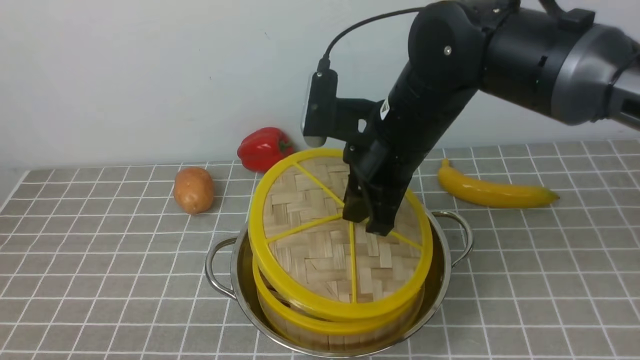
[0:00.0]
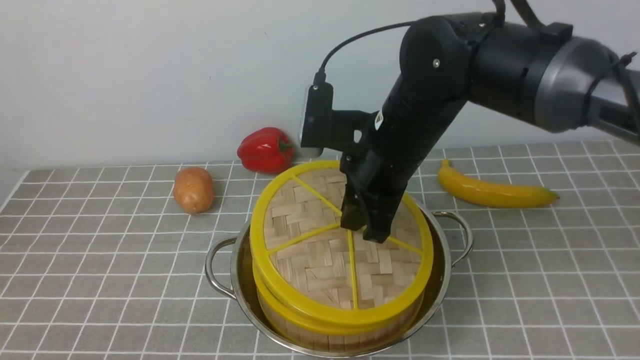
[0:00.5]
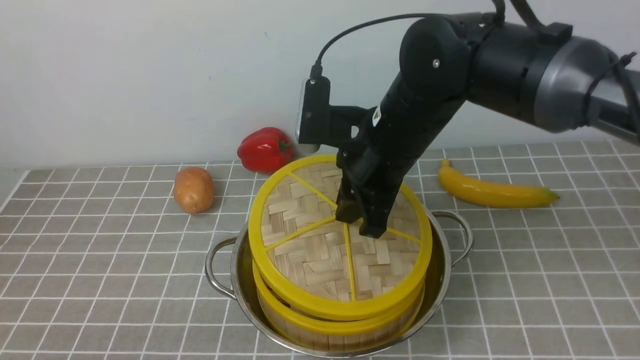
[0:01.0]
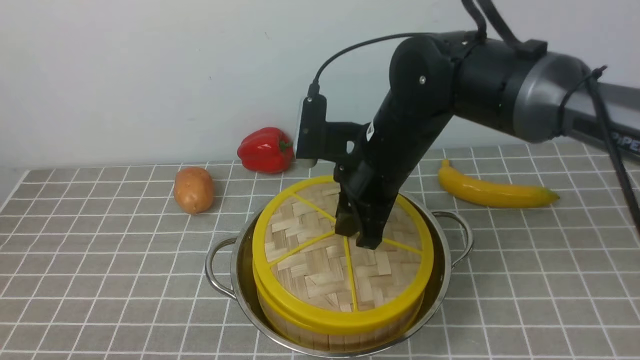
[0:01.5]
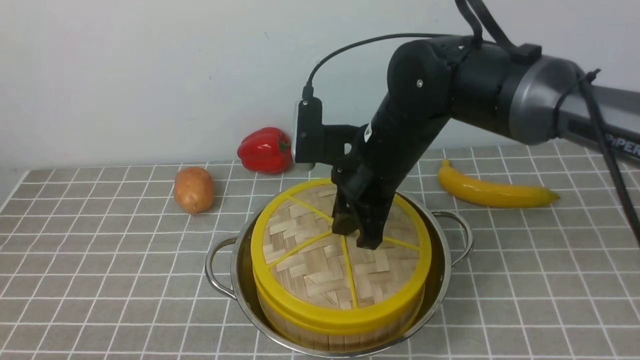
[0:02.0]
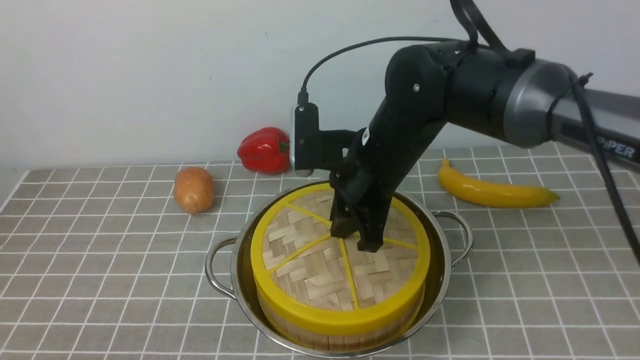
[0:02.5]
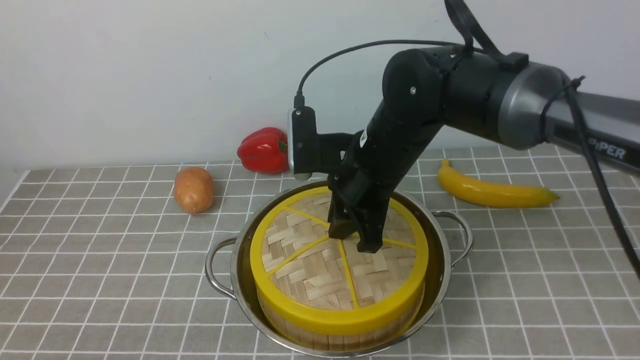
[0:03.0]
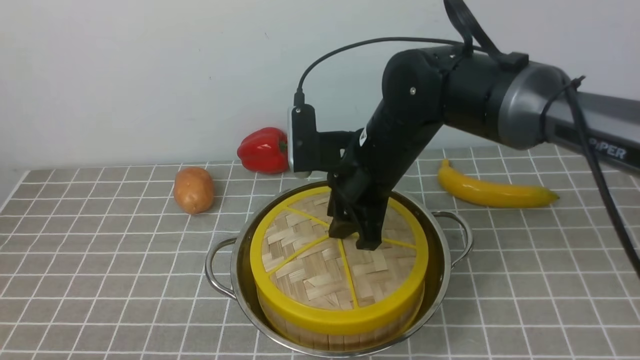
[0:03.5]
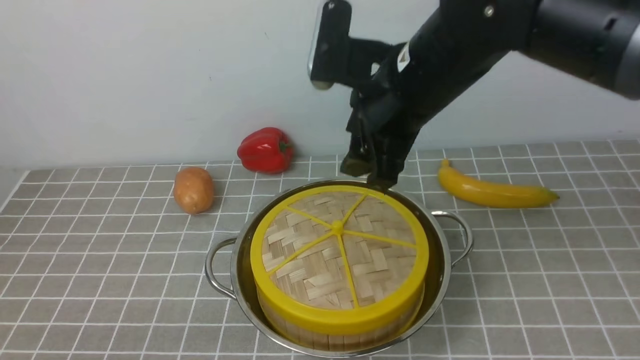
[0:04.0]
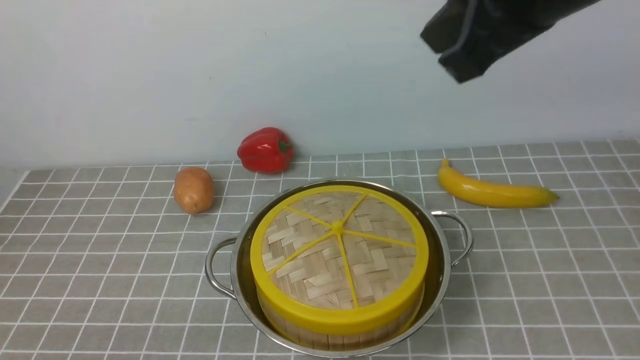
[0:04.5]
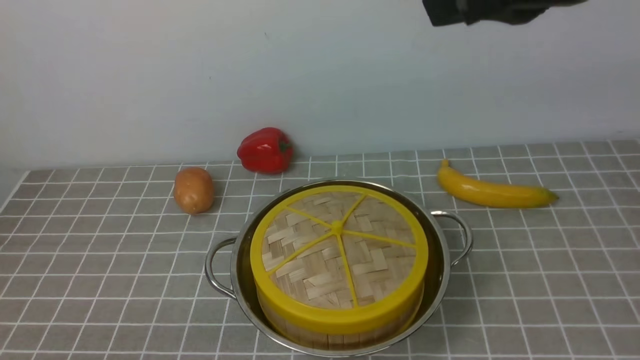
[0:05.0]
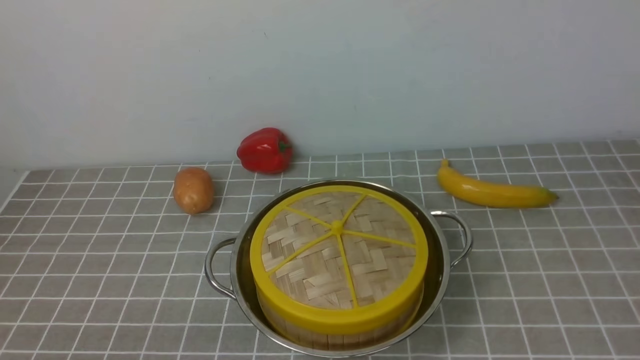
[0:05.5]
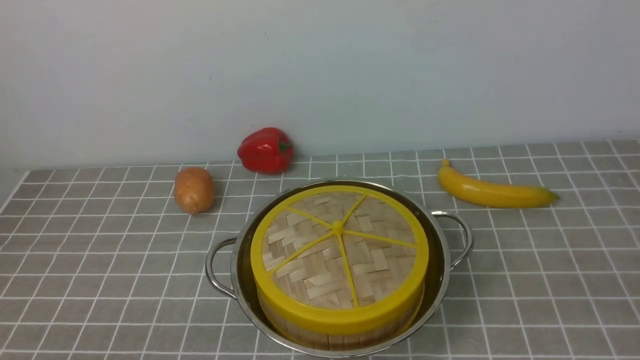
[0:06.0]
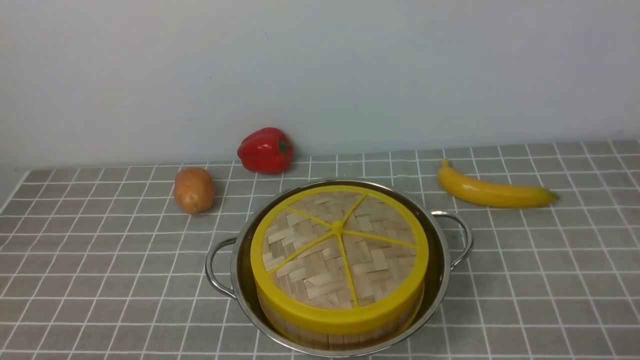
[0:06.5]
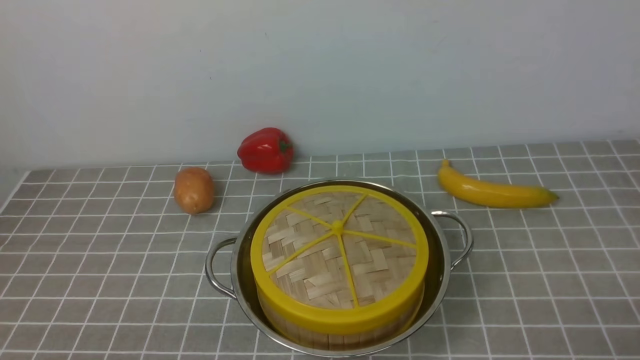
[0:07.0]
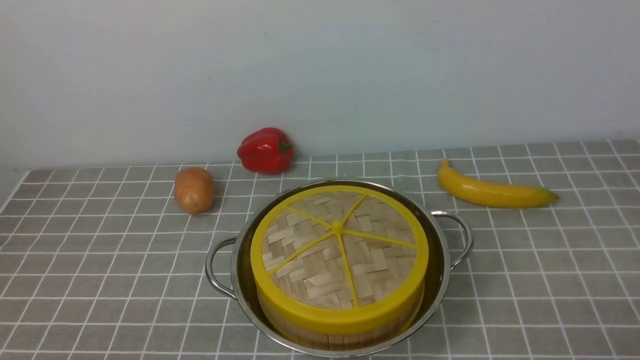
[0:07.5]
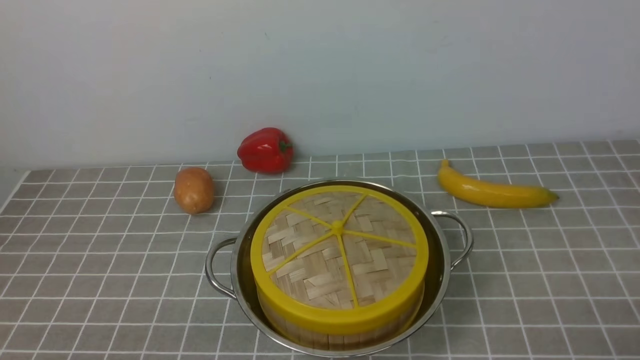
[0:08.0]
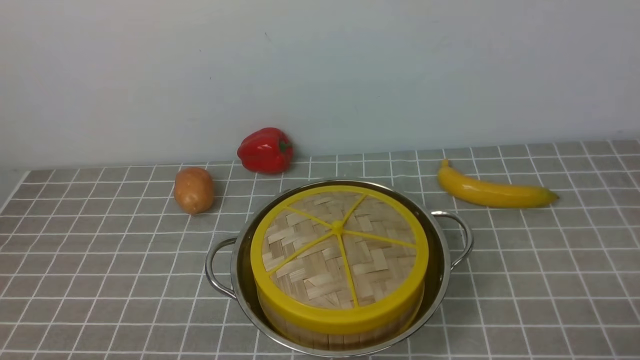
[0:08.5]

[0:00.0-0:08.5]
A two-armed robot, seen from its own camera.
Task of the whole recording: place the steamer in the pot on the grey tablecloth, and put the lid on the steamer.
Step, 0:00.0 to 0:03.5: use the right arm to place the steamer lid on the steamer.
0:00.0 to 0:02.0: The grippers make only small movements.
0:02.0 to 0:04.0: The right gripper travels upward by roughly 10 cm, and opens up.
0:04.0 to 0:06.5: The right gripper heads backward, to the right and downward, covering about 40 cm, and closes its fingers.
0:06.5 to 0:08.5: Both grippers stay about where they are.

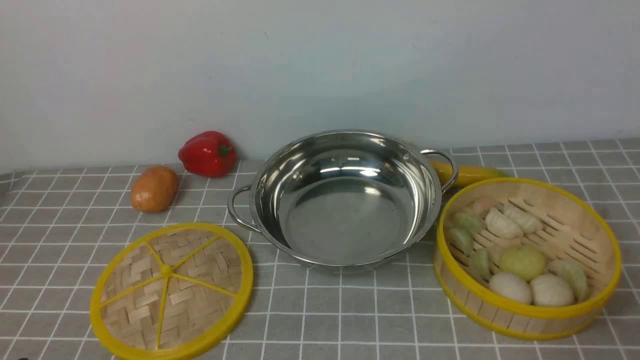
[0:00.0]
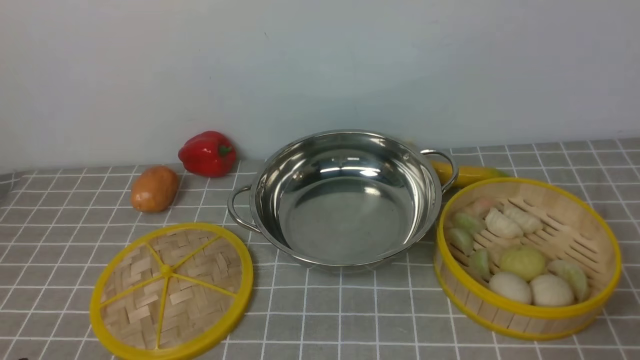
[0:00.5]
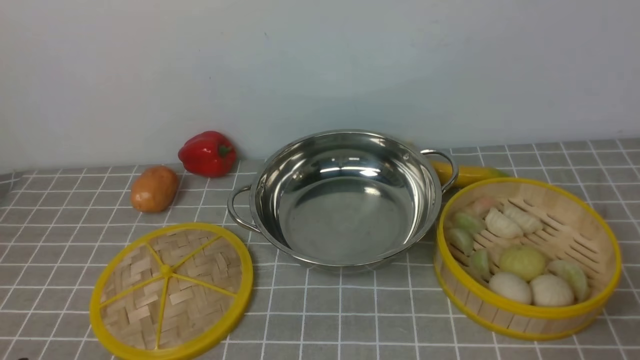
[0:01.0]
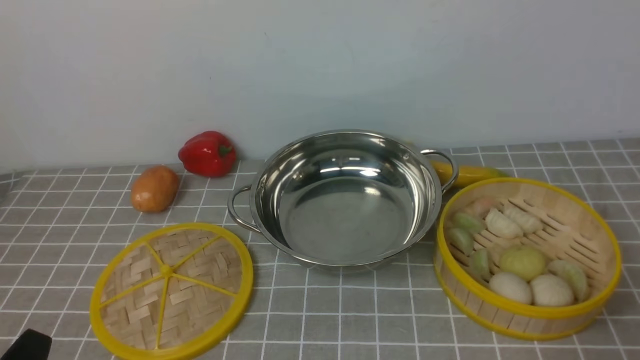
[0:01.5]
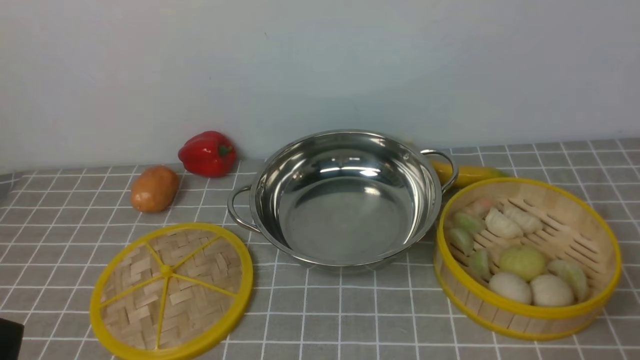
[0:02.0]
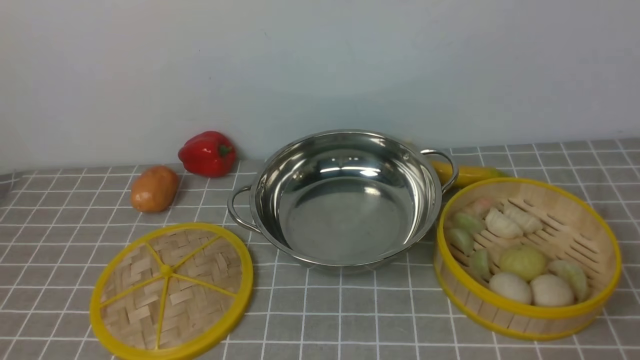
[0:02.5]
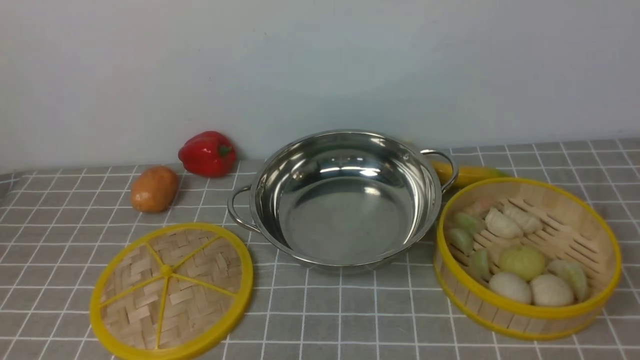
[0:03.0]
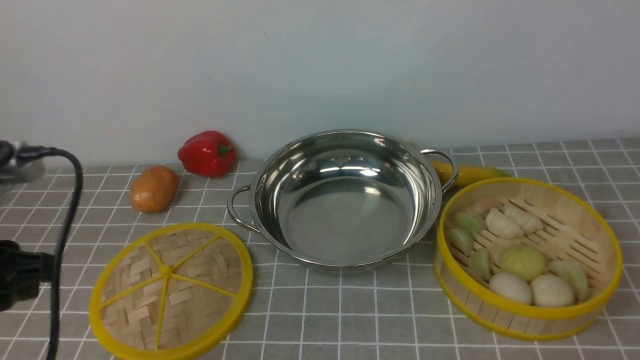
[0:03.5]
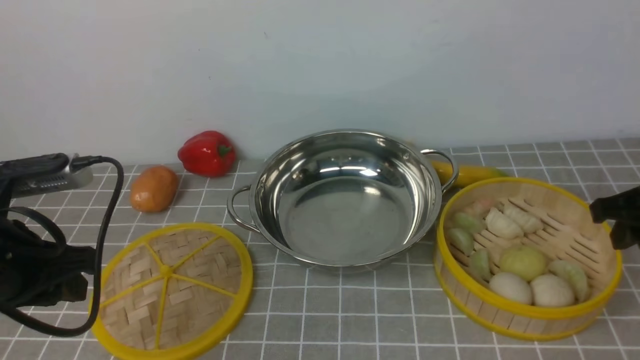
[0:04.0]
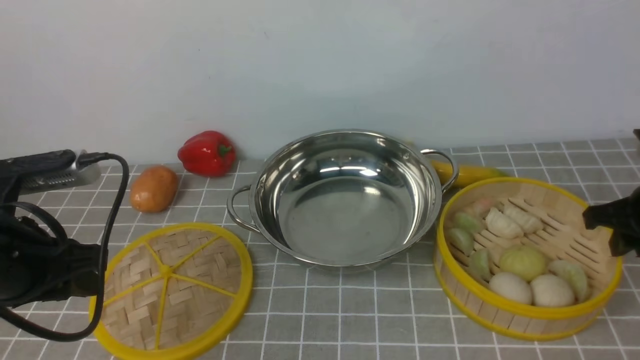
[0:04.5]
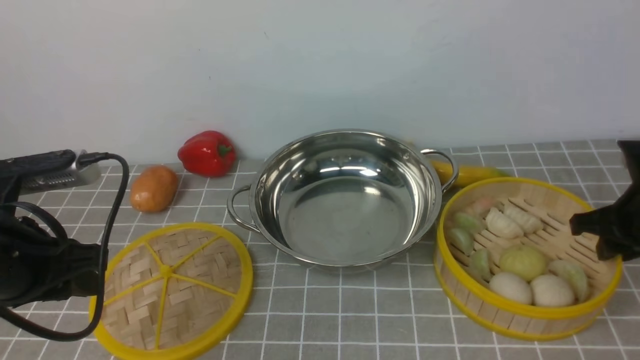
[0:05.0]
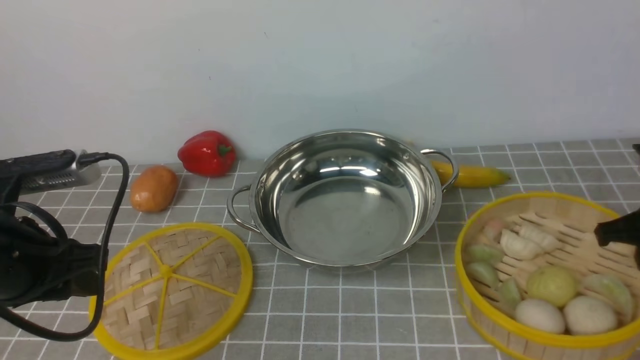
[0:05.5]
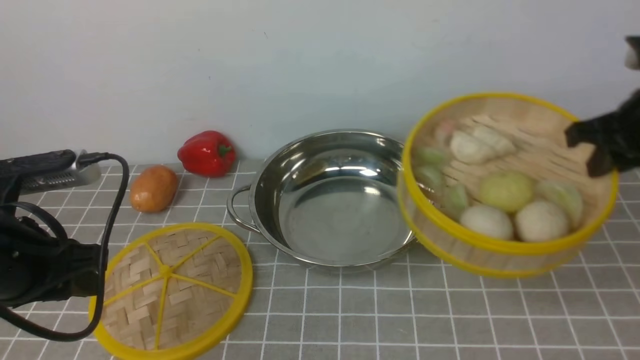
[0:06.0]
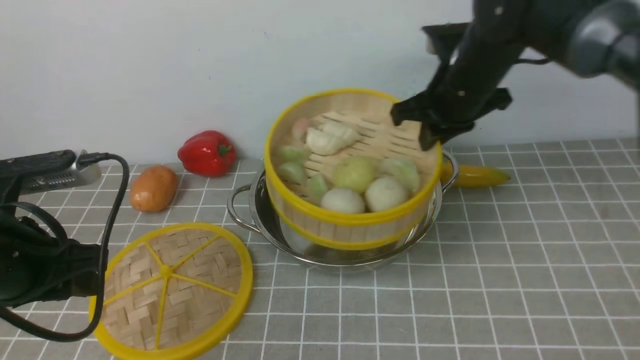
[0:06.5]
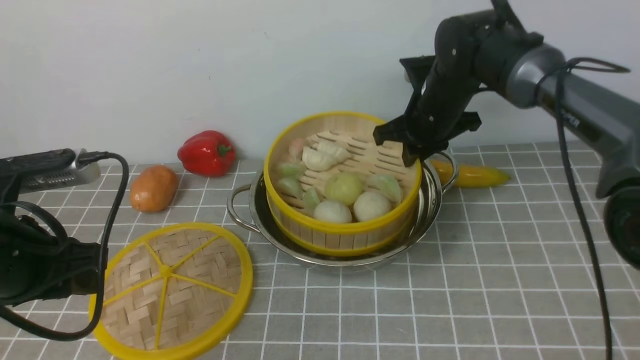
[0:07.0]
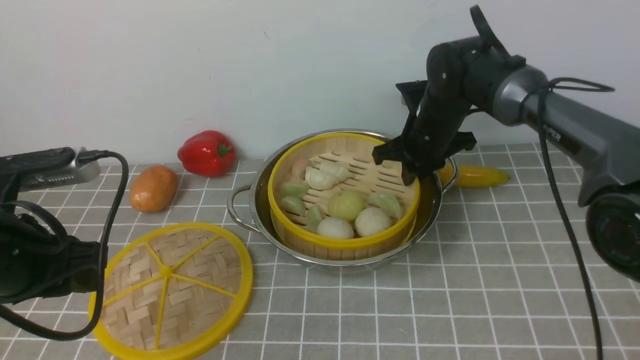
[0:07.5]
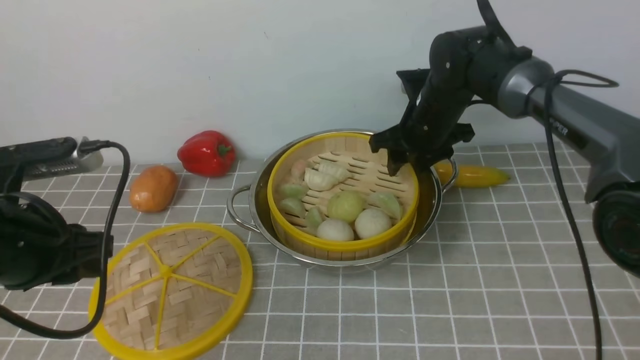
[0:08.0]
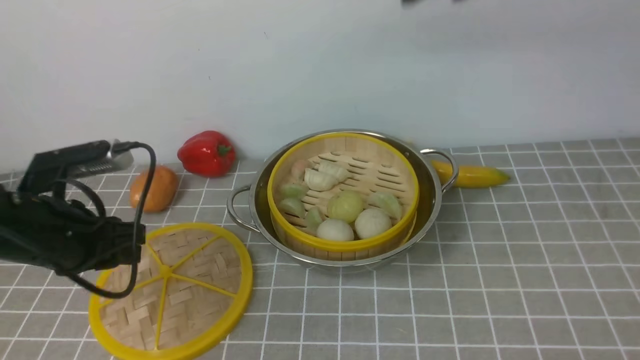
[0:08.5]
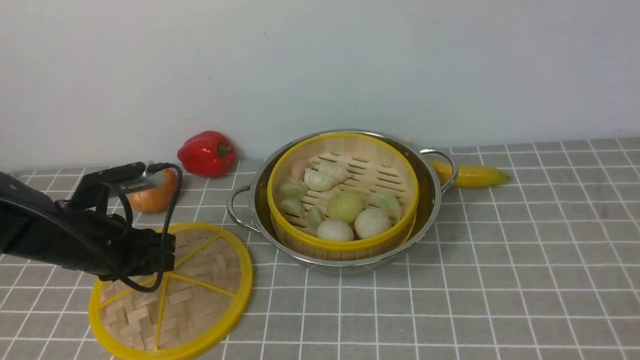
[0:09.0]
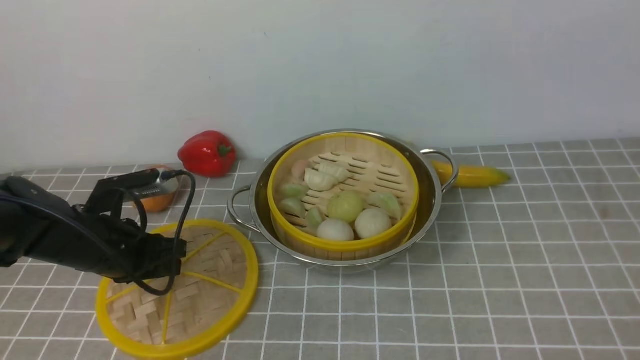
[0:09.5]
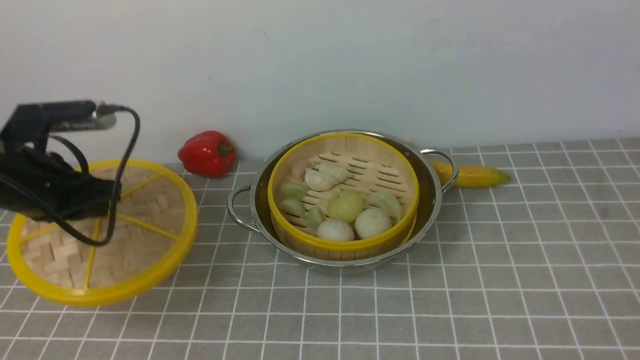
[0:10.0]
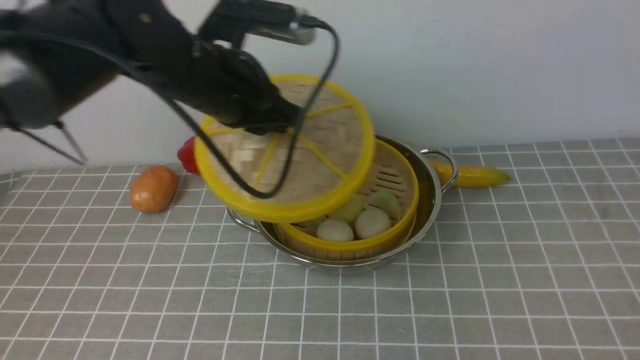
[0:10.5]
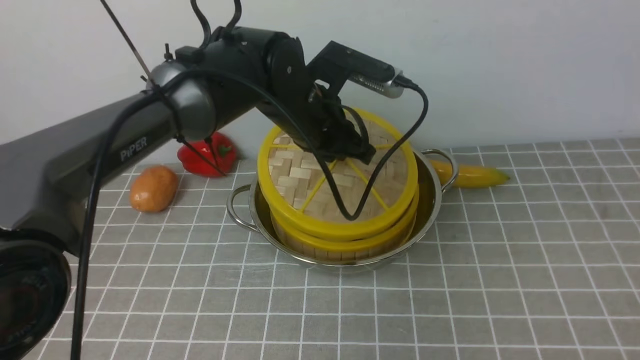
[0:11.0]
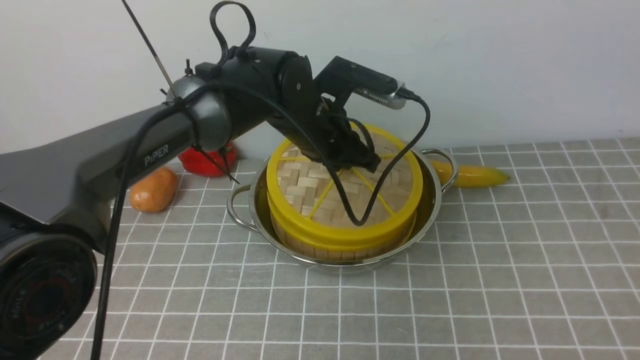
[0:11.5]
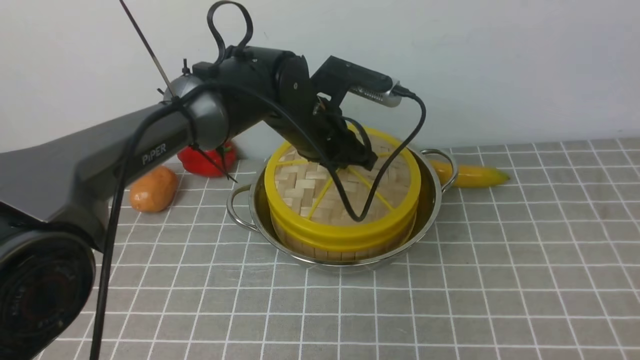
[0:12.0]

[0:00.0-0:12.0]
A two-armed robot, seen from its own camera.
Task of the whole recording: place the steamer in the pot on the grey tablecloth, and put the lid on the steamer.
Step, 0:00.0 to 0:05.5: use the right arm to lift the steamer closest to it.
Step, 0:06.0 to 0:08.0: use the right arm to put the steamer into the iron steamer pot in the middle.
Step, 0:08.5 to 0:09.5: use the left arm to lift the lid of the steamer.
0:02.0 to 0:04.0: The left gripper heads forward and upward, covering roughly 20 cm. Meanwhile the right gripper shifts roughly 25 cm forward.
0:04.0 to 0:06.0: The right gripper goes downward and returns, about 5 cm each way, and closes.
0:06.0 to 0:08.0: The right gripper shifts roughly 25 cm to the left, forward and downward, and opens.
0:08.0 to 0:10.0: The right gripper moves upward and backward, some 50 cm, and opens up. Meanwhile the left gripper shifts about 10 cm forward.
0:10.0 to 0:12.0: The left gripper moves to the right, approximately 25 cm.
